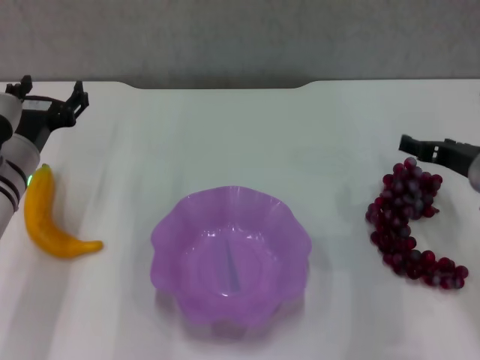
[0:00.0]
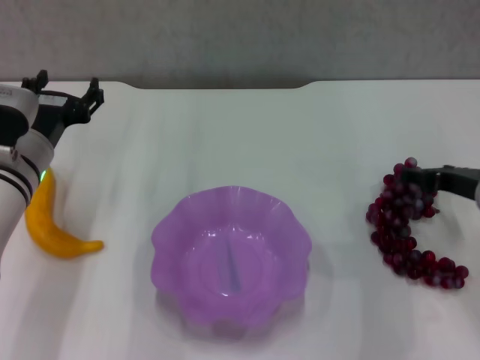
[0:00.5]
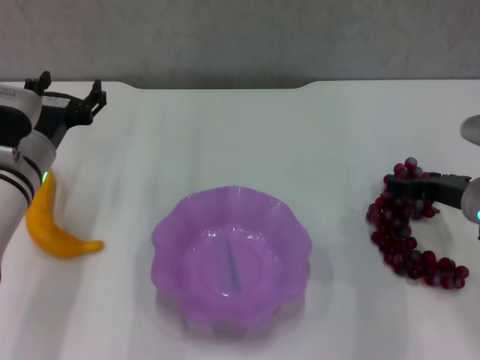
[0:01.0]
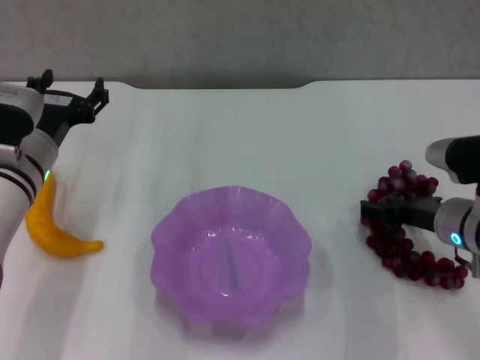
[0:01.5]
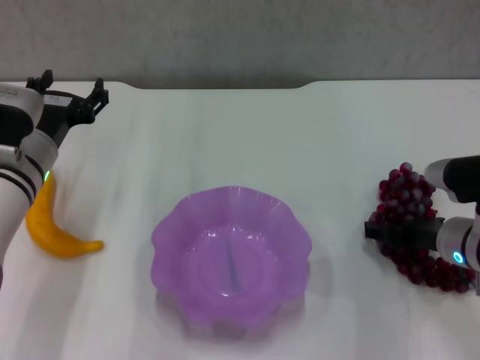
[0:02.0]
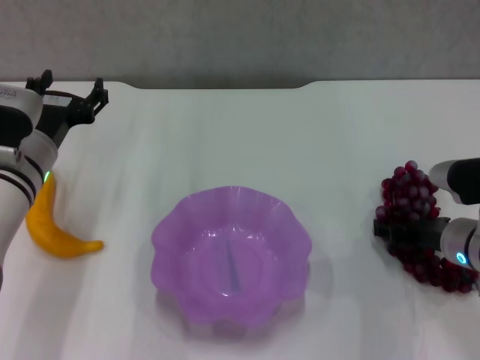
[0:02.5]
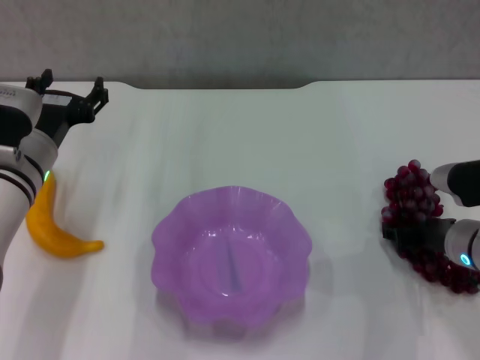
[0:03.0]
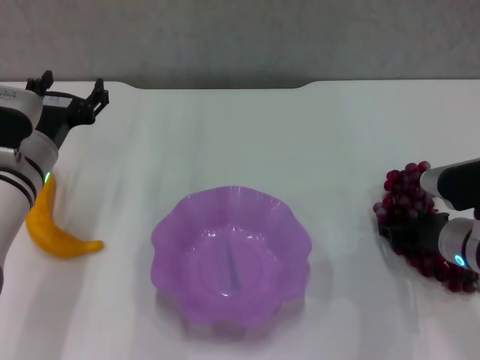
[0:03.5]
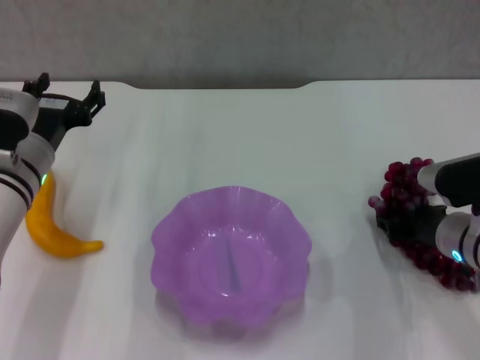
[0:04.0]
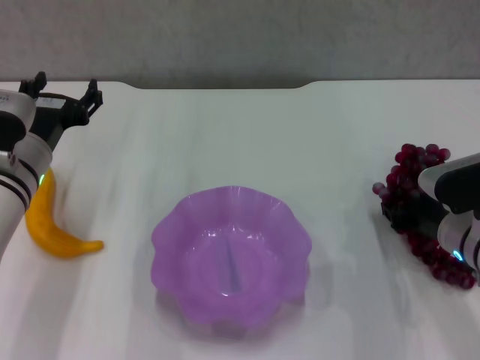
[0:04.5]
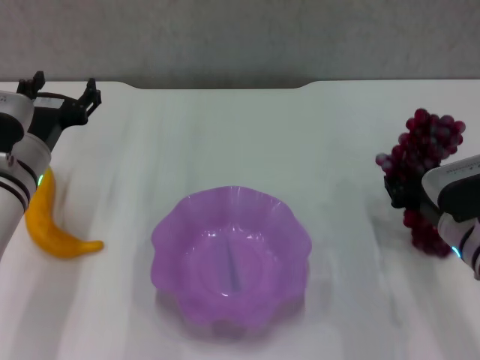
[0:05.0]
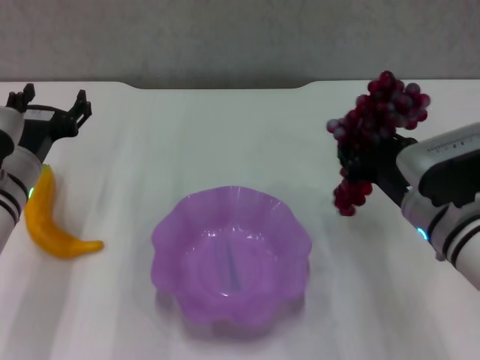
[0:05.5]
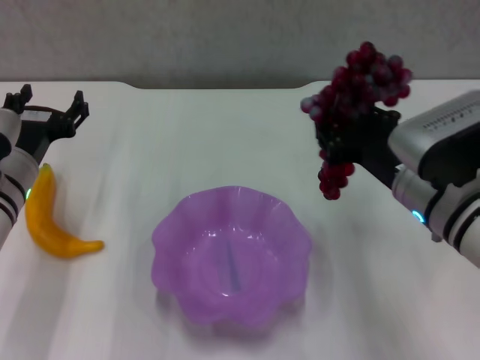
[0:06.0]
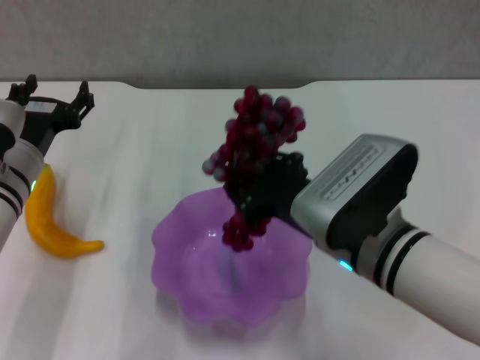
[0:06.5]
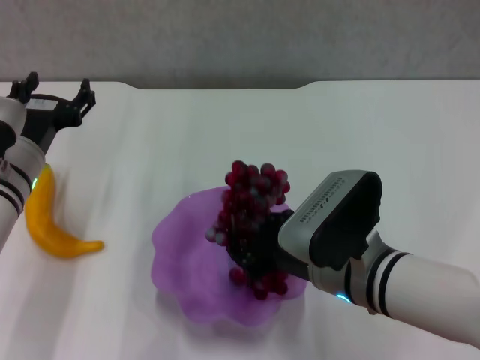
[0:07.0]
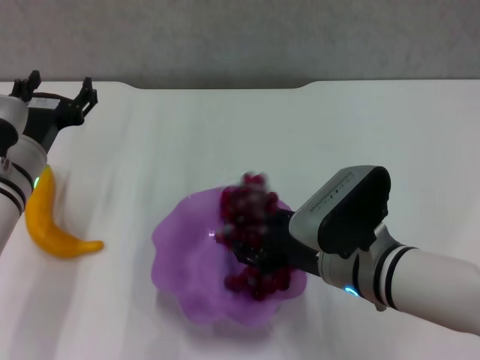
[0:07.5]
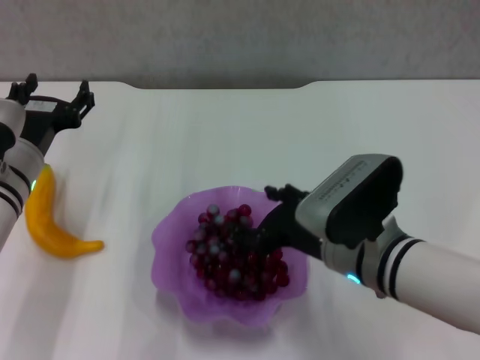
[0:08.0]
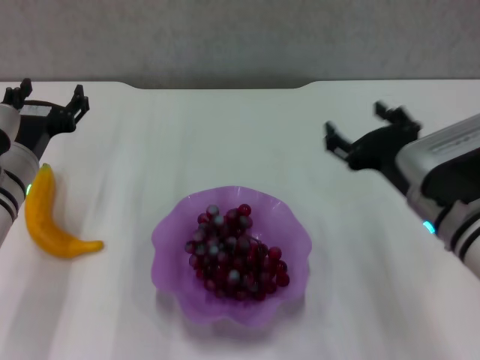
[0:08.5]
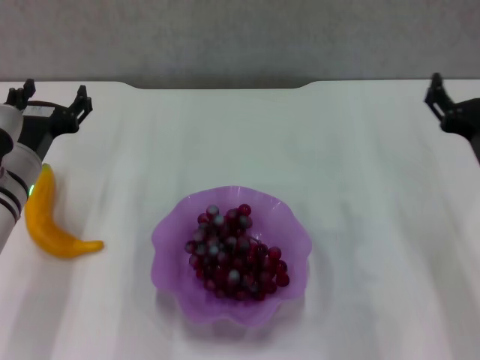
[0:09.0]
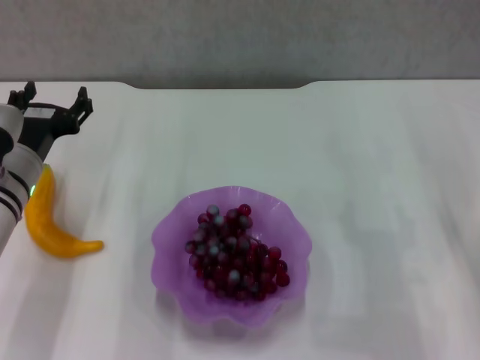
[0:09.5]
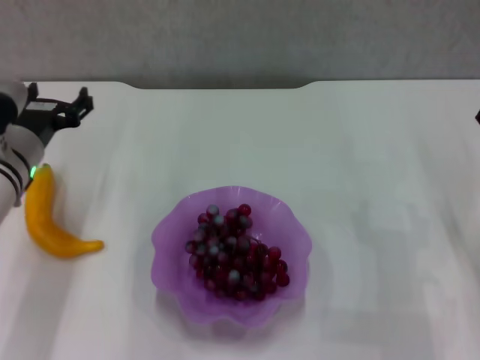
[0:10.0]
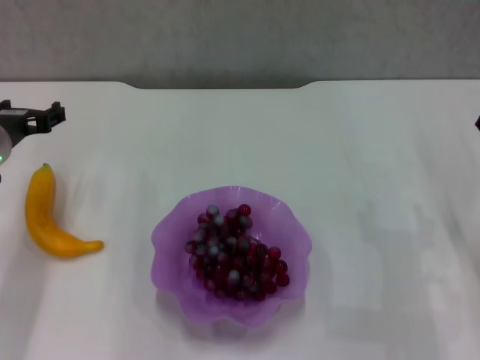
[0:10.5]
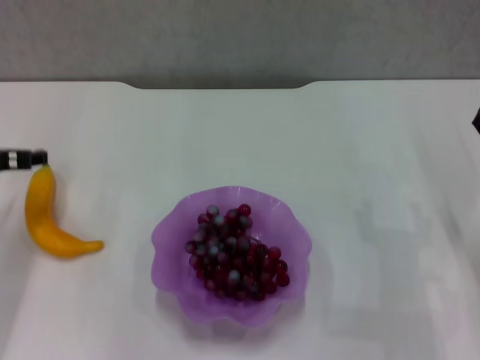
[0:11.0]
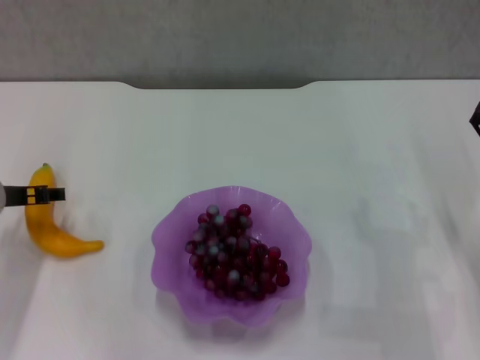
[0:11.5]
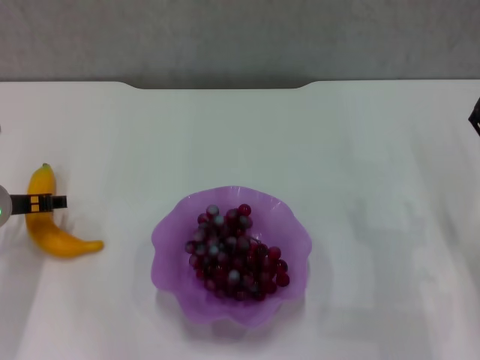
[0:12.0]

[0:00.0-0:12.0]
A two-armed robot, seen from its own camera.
Step, 0:00.0 to 0:03.5: Grasp the grape with right gripper.
Step, 0:04.0 to 0:08.0: Place the grape in the purple plate with right gripper.
0:00.0 to 0:02.0: The right gripper travels downward by about 5 cm.
0:02.0 to 0:04.0: The right gripper closes.
0:04.0 to 0:06.0: The right gripper travels upward and to the left by roughly 10 cm.
0:06.0 to 0:08.0: The right gripper is displaced to the left by some 5 cm, and opens.
0:08.0 to 0:10.0: The right gripper goes approximately 20 cm to the right.

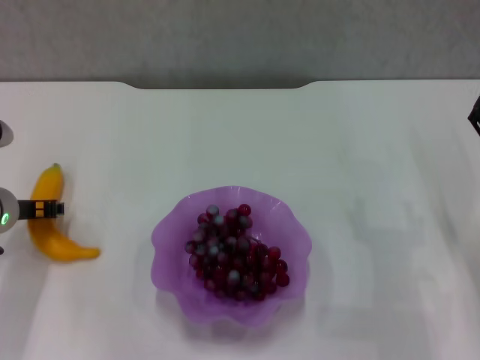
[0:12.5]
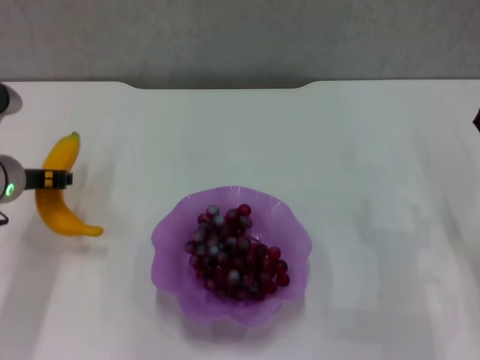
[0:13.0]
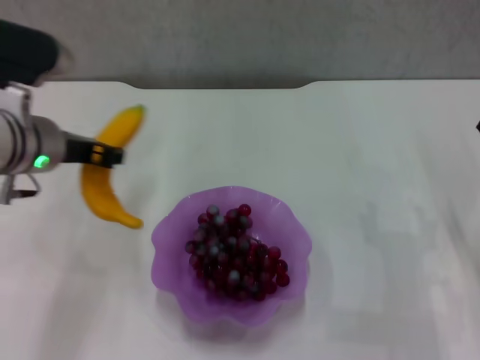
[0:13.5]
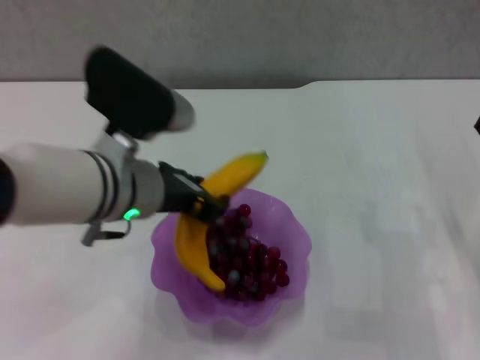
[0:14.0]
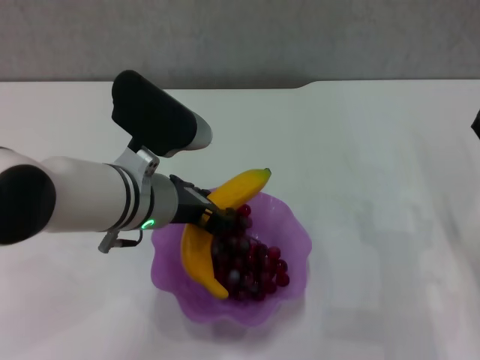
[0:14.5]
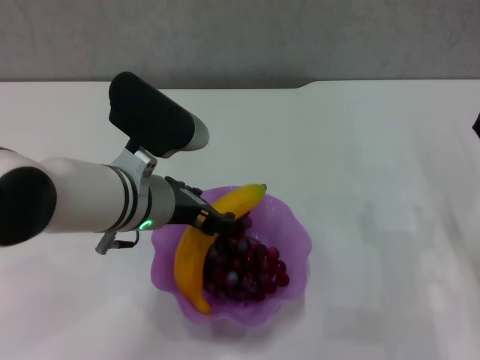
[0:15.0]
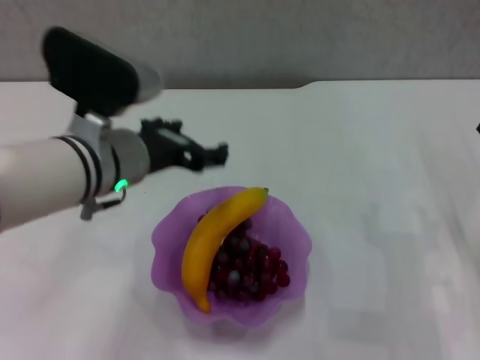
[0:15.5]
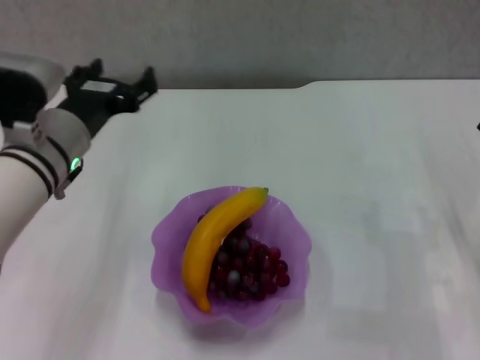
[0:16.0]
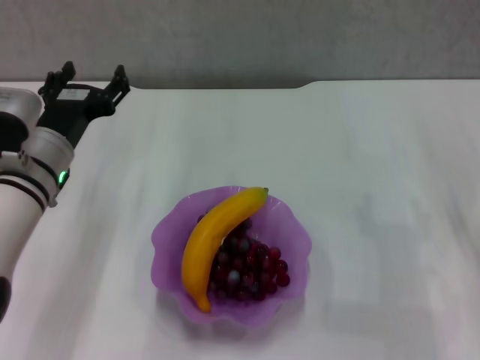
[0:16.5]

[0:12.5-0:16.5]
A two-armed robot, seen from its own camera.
Step, 0:13.0 to 0:15.0: Place the banana in the purple plate with left gripper.
0:12.5 to 0:14.5: The left gripper goes roughly 20 cm to the right and upward.
0:14.5 to 0:16.5: The left gripper heads to the left, covering about 10 cm, and opens.
